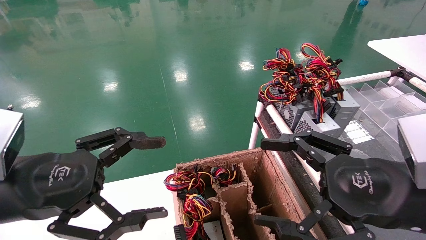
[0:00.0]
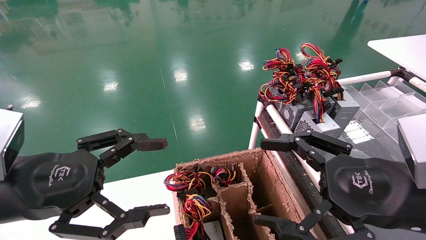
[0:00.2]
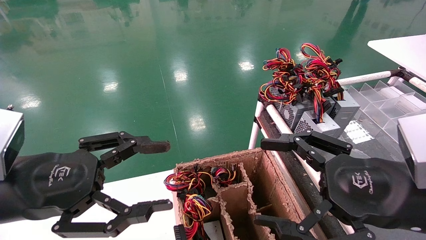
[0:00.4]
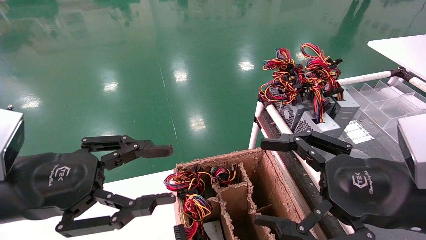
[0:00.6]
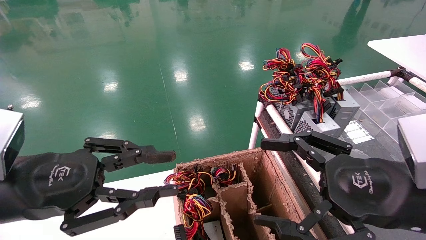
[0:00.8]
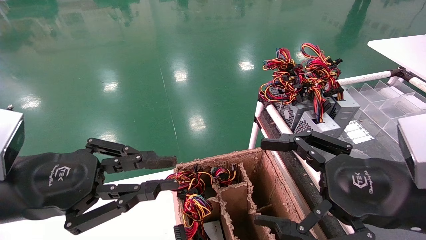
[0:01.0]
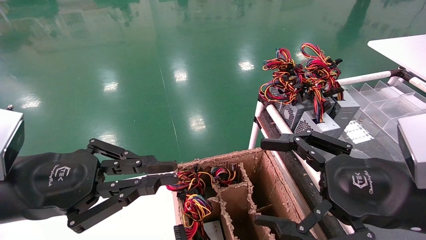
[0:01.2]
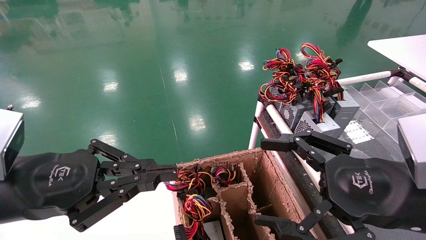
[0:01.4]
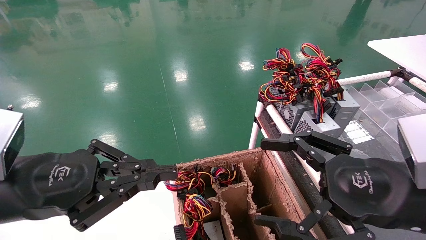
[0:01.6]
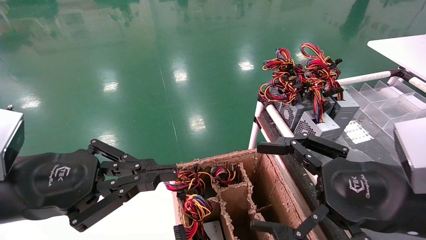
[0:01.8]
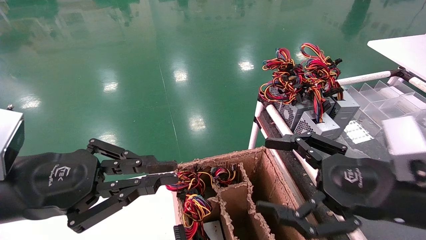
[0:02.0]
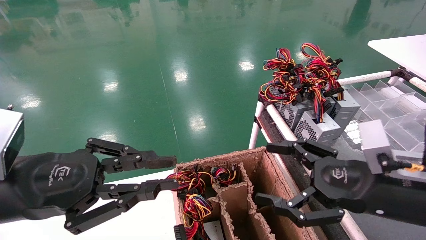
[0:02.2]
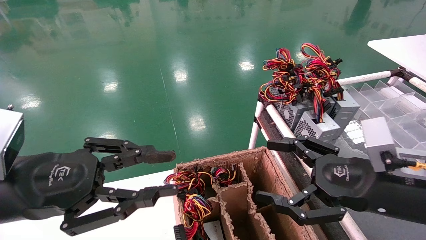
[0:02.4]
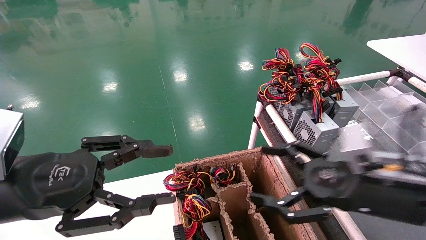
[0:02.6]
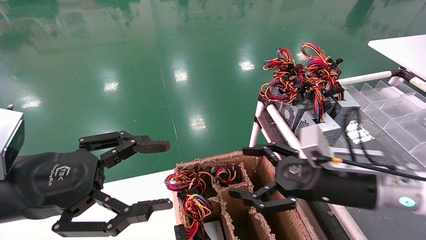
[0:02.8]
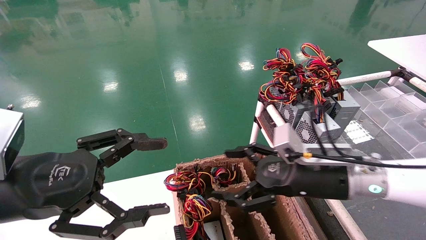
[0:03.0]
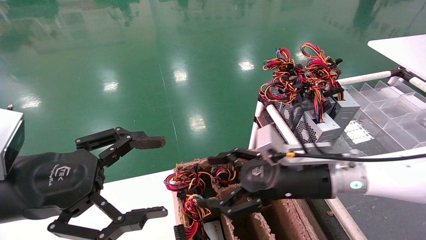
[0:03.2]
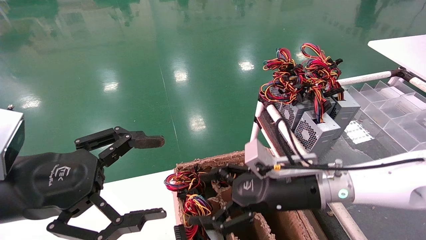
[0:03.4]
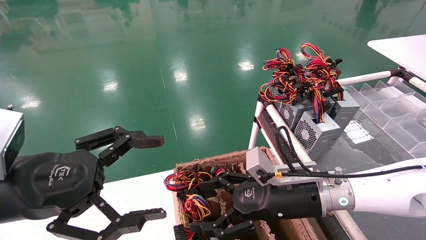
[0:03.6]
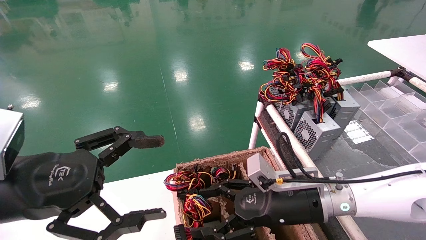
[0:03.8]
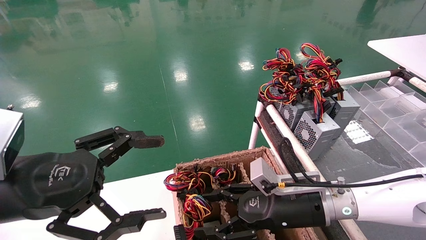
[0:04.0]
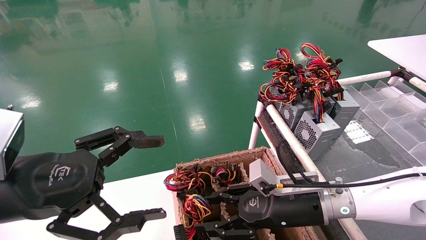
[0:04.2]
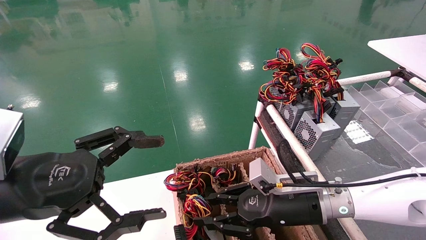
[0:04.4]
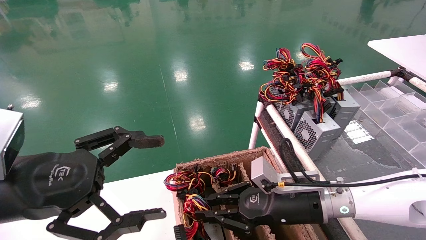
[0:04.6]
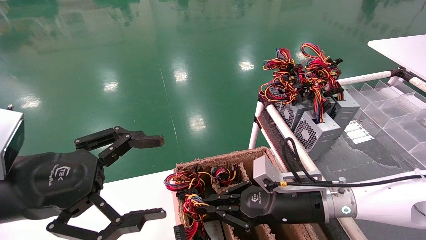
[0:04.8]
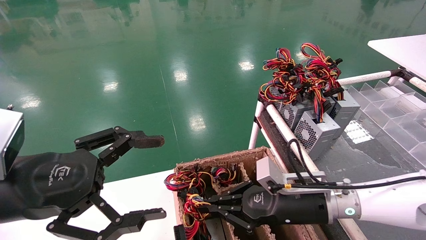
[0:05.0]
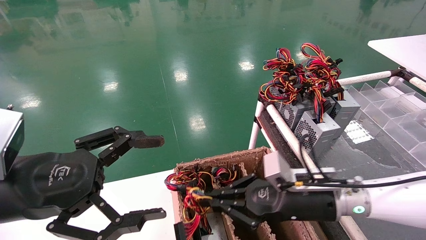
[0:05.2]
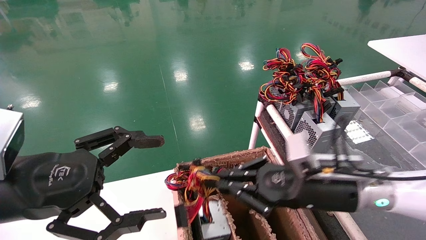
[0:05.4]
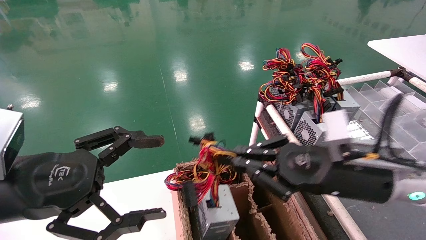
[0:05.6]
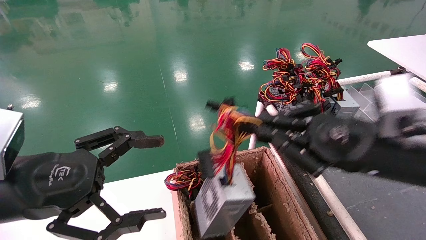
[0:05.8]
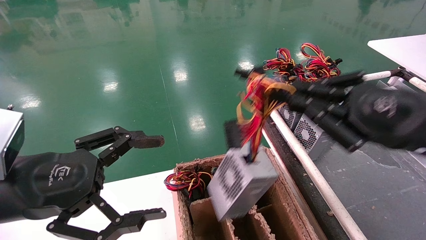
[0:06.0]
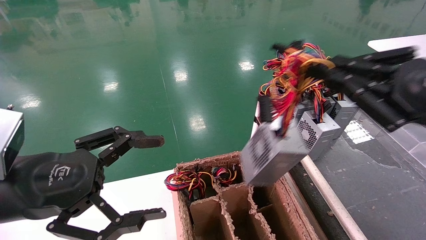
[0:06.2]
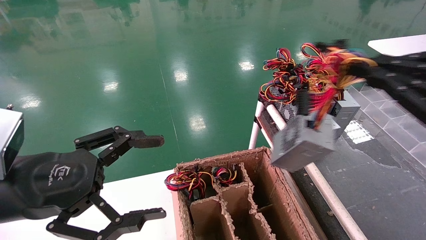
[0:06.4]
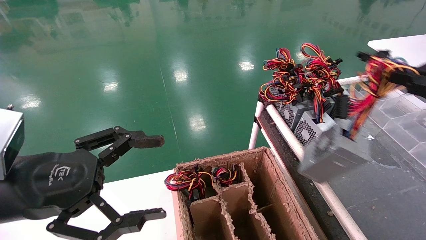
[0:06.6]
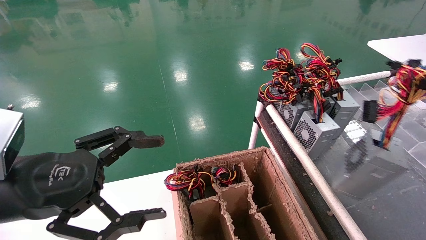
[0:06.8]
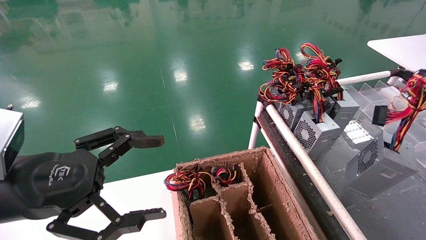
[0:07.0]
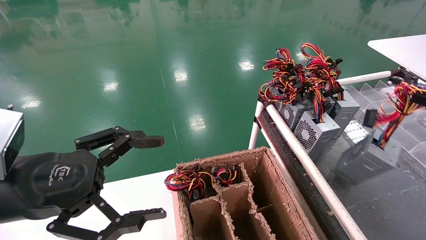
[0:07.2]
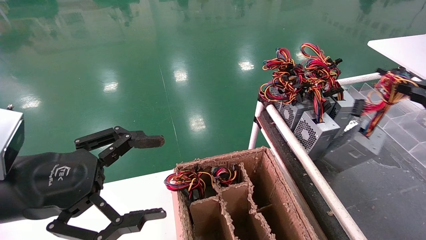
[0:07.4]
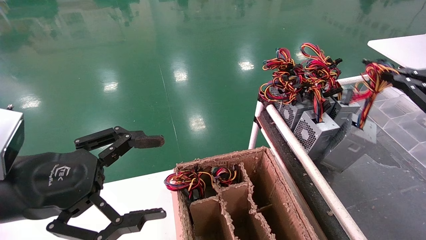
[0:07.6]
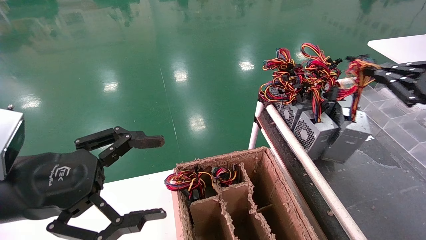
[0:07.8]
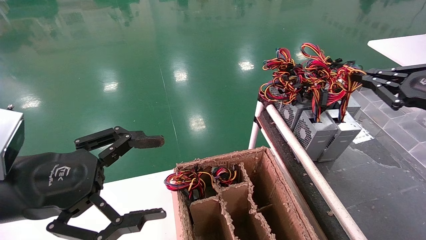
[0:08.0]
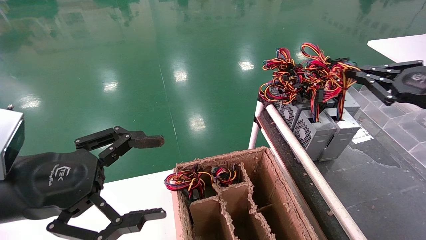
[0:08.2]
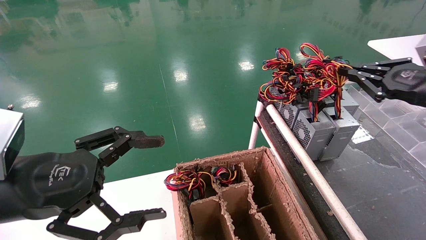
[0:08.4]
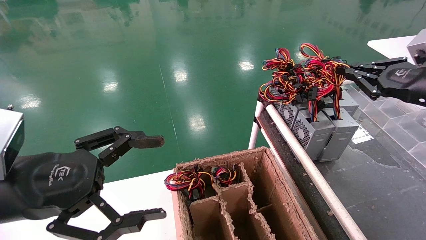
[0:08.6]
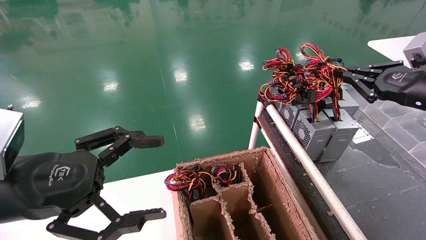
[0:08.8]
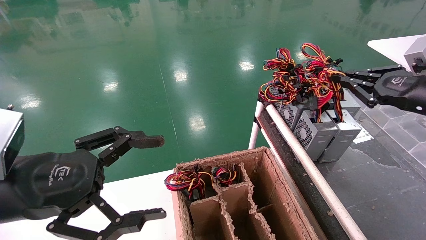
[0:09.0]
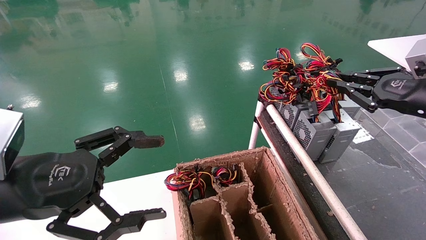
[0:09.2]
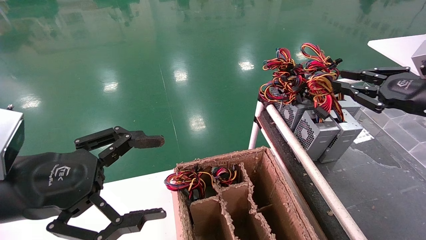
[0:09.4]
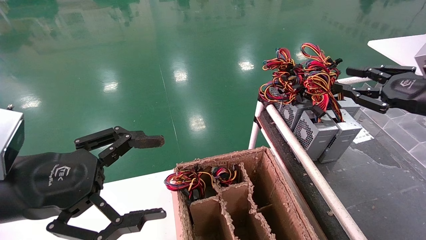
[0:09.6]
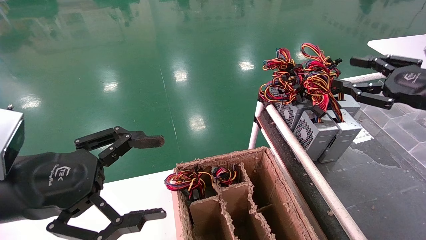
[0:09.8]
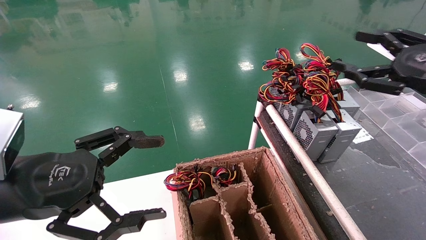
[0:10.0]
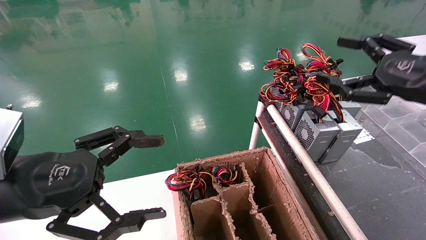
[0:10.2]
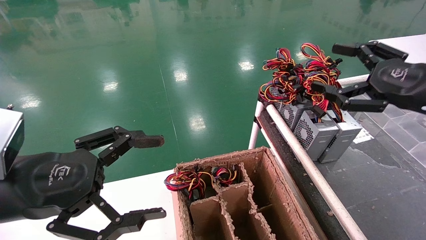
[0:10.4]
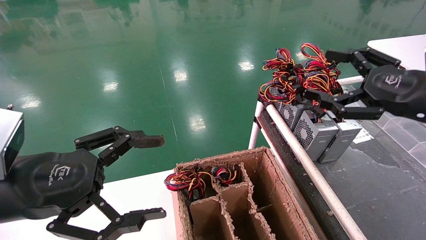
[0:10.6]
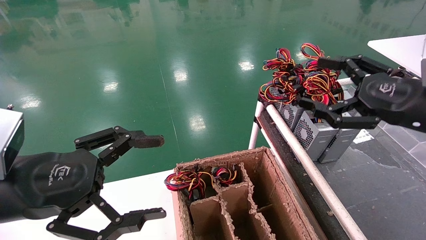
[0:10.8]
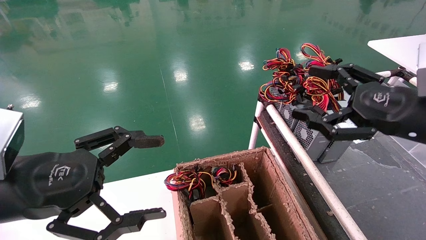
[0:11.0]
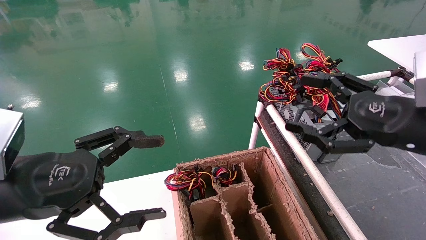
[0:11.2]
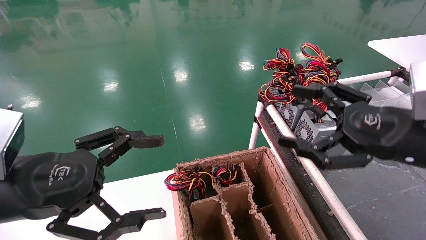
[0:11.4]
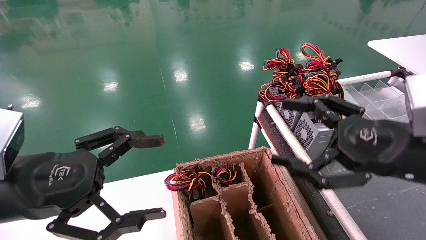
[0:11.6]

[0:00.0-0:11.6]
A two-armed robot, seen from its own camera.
Step, 0:01.4 to 0:05.4: Grab and lift the power supply from the large box.
Step, 0:05.6 to 0:09.2: Place the power supply on the operating table.
0:00.0 to 0:01.4: The left gripper closes.
0:01.4 to 0:02.8: The left gripper opens. The right gripper shifts some 10 cm forward and downward.
0:02.8 to 0:04.4: The left gripper opens. Meanwhile the right gripper goes roughly 10 cm downward and to the left, and closes up.
0:04.4 to 0:05.8: The right gripper travels upward, to the right and backward by roughly 20 cm, and closes up.
0:05.8 to 0:07.2: The right gripper moves to the right, about 20 cm.
0:07.2 to 0:08.8: The right gripper moves forward and to the left, some 15 cm.
0:08.8 to 0:10.2: The right gripper opens up.
0:10.2 to 0:11.6: The right gripper goes roughly 15 cm to the left, backward and downward.
